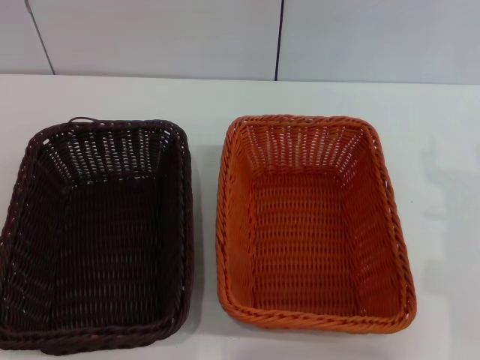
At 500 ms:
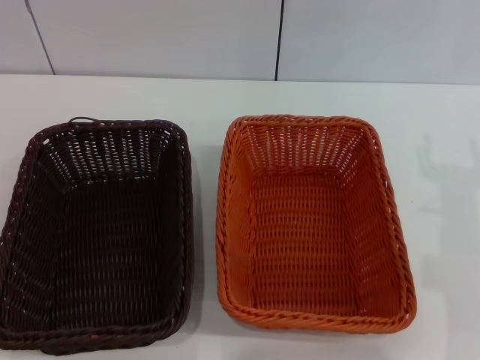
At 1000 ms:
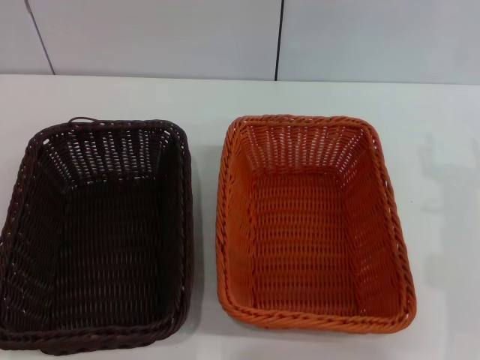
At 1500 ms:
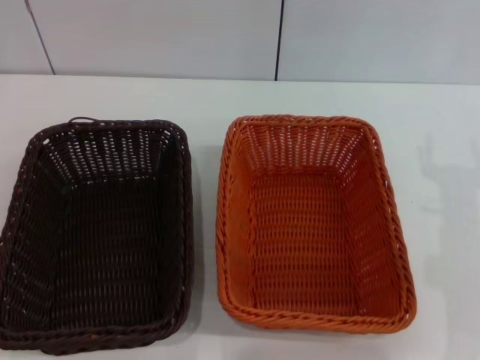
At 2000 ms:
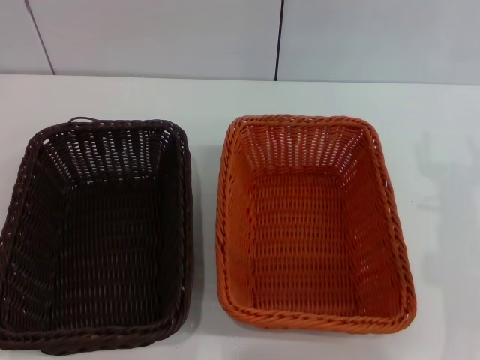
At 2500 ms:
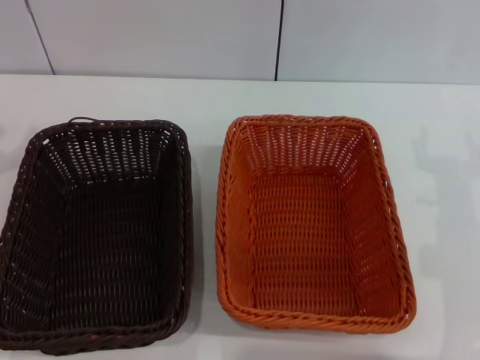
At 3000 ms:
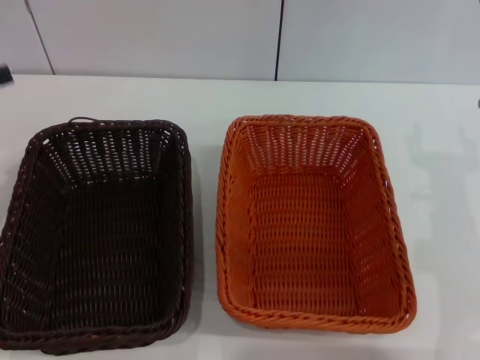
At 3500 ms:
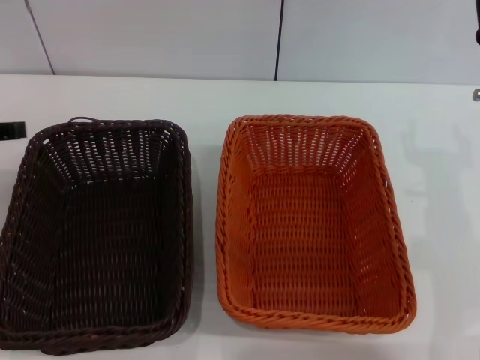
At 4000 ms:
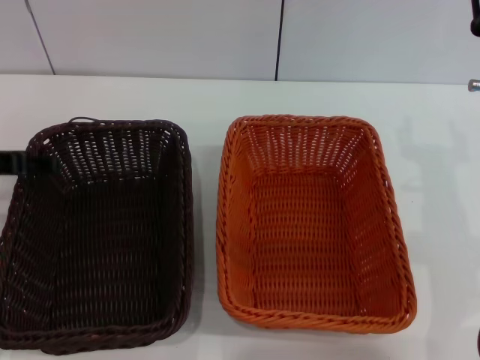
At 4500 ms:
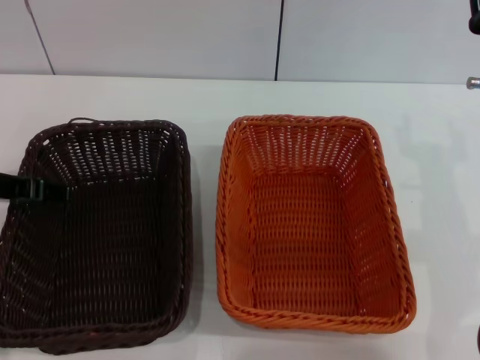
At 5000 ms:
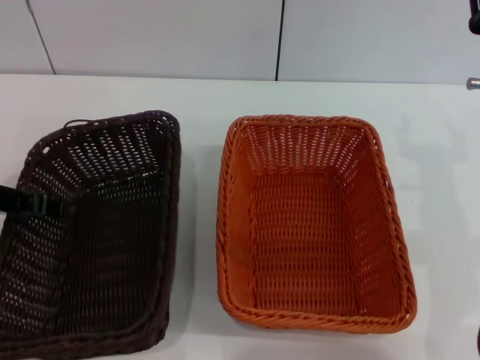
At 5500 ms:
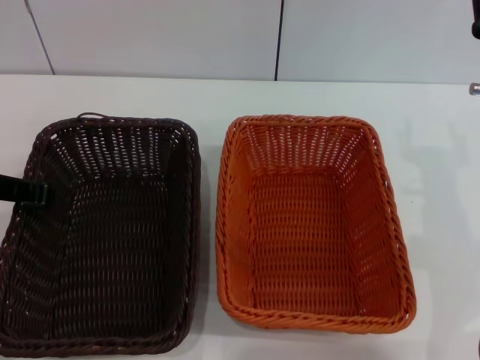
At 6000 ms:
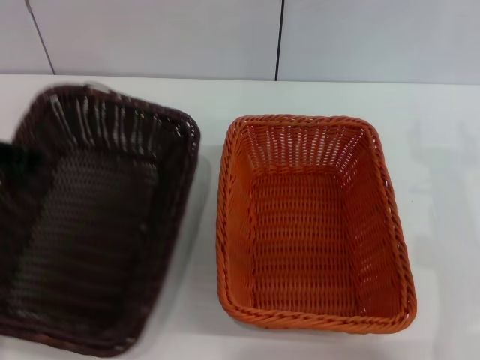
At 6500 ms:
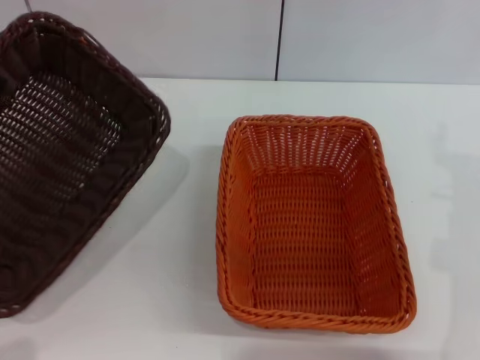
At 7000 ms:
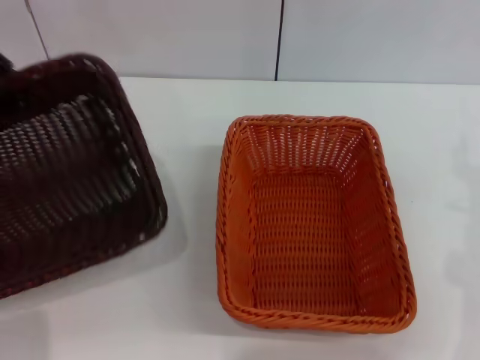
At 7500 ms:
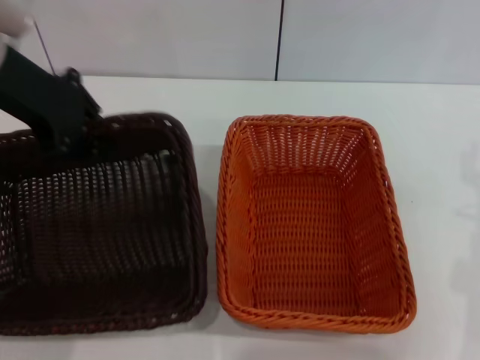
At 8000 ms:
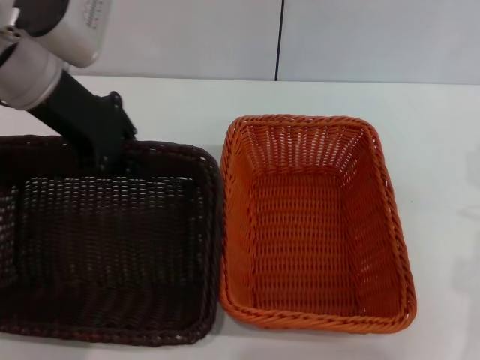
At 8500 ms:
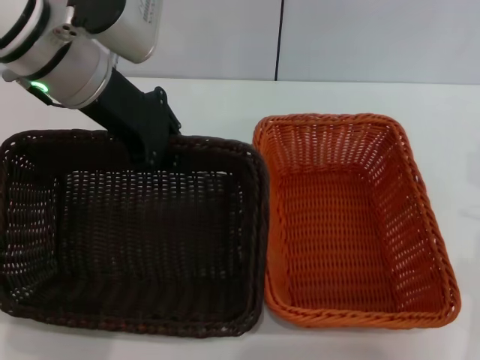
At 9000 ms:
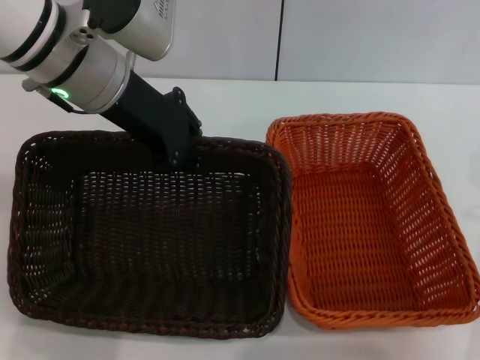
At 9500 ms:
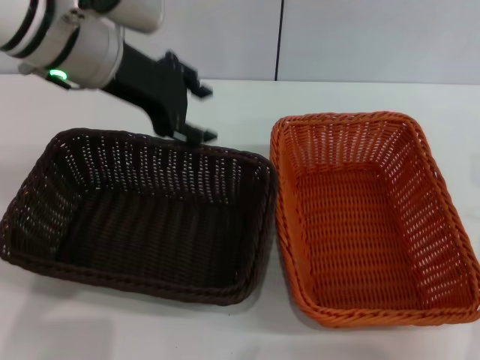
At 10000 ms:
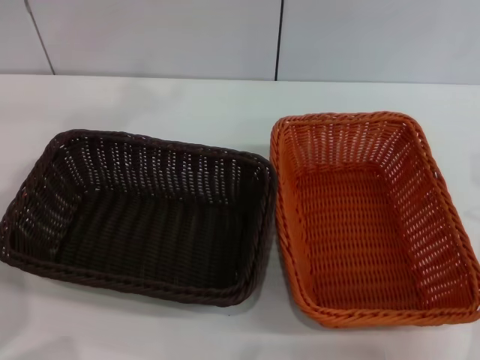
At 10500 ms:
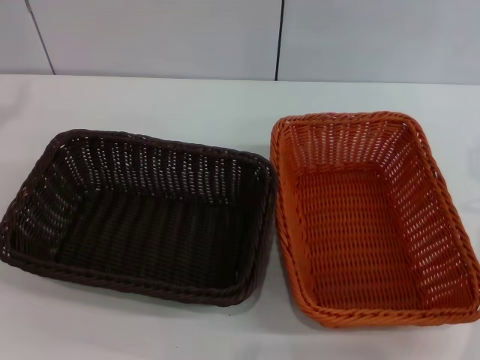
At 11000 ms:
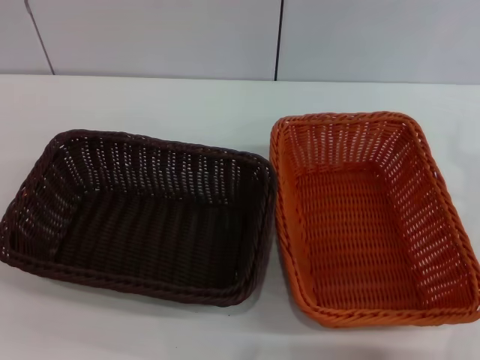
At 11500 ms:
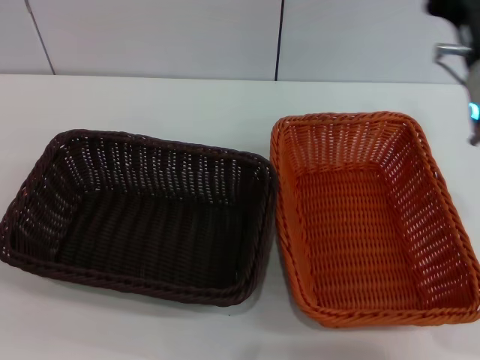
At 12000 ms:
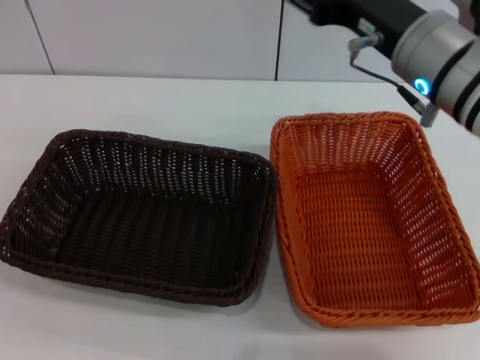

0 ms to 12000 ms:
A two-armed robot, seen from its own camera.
Step, 0 ms to 5500 ms: Pick up the dark basket with the left gripper.
Step, 6000 ms to 9000 ms: Place the dark basket in the center of view with the left gripper.
4000 ms to 6000 ms: The left gripper closes.
6000 ms to 8000 ms: The left gripper travels to the right, forward and upward by approximately 10 cm; the right gripper shifts by approximately 5 cm.
8000 ms to 10000 ms: The left gripper goes about 5 cm to the left, and opens up.
10000 ms to 12000 ms: The right gripper shifts approximately 15 cm to the left, upward and forward.

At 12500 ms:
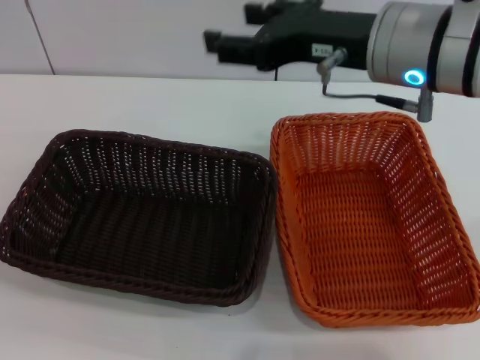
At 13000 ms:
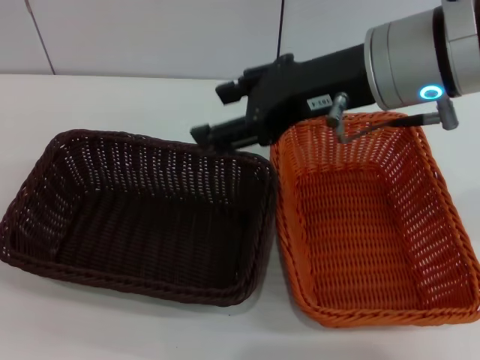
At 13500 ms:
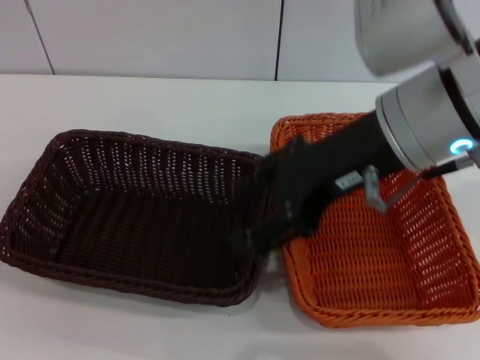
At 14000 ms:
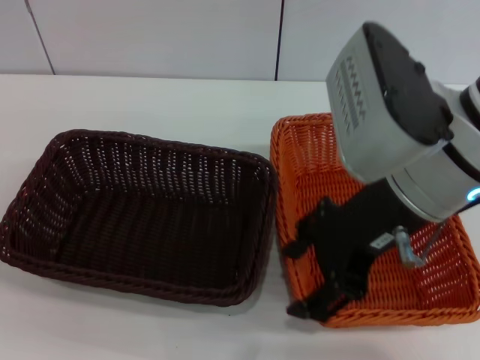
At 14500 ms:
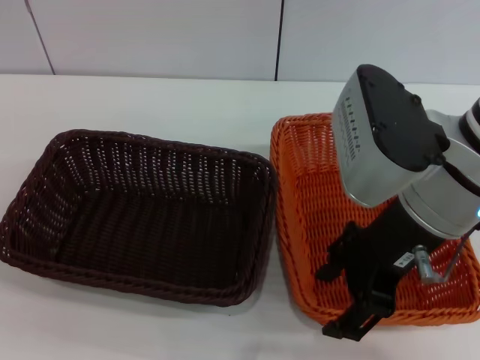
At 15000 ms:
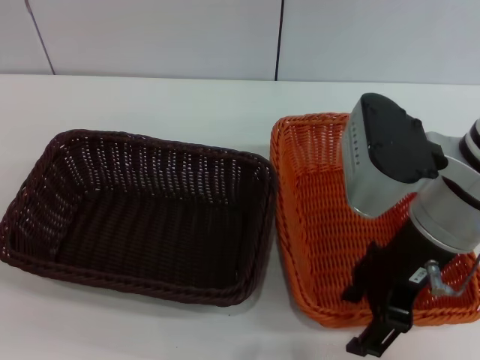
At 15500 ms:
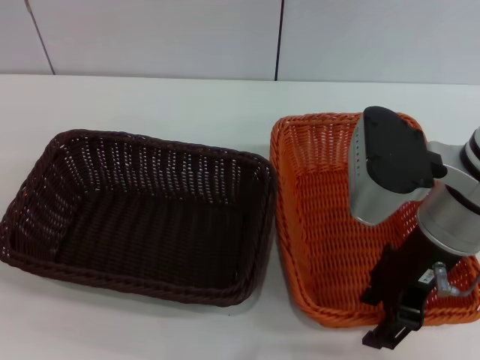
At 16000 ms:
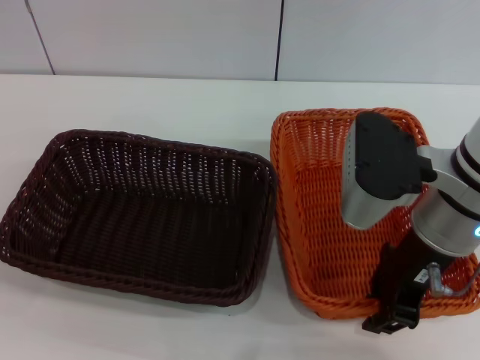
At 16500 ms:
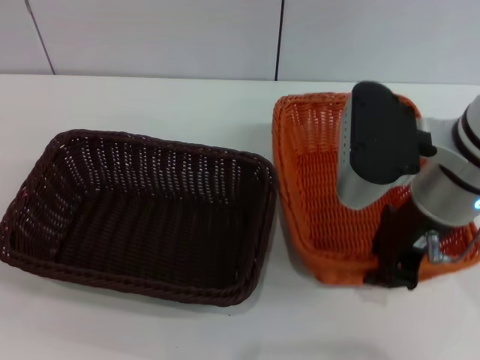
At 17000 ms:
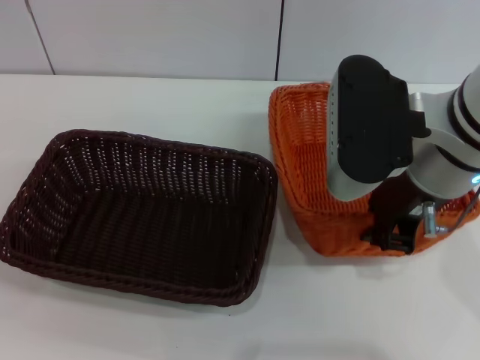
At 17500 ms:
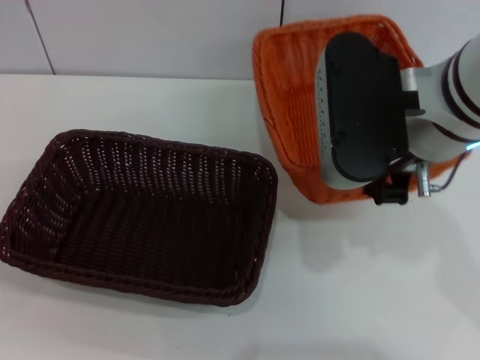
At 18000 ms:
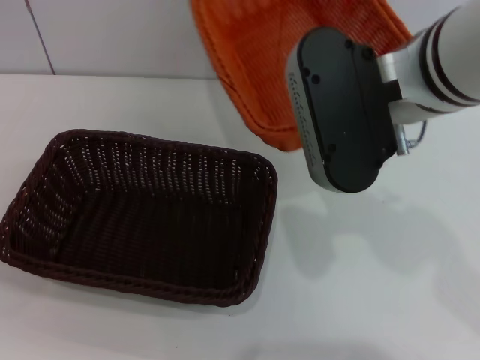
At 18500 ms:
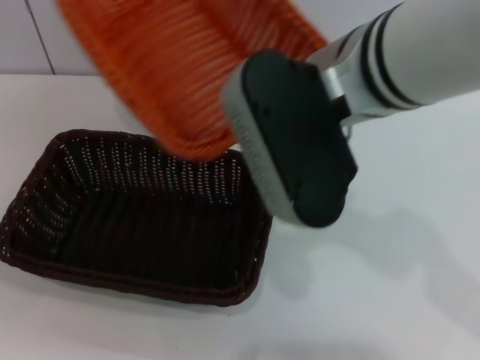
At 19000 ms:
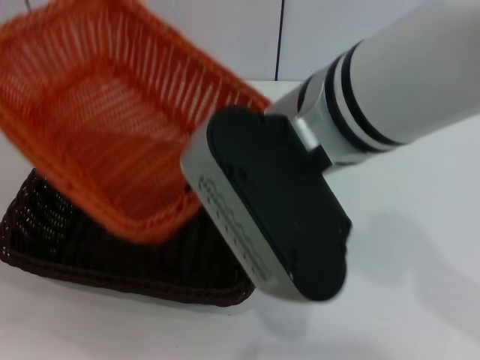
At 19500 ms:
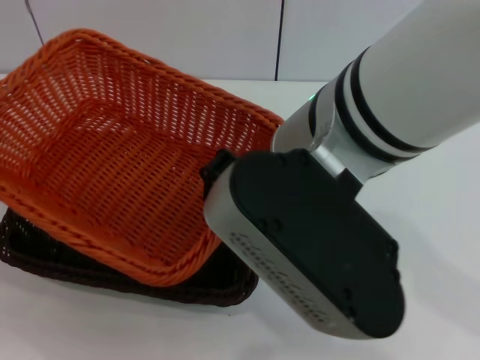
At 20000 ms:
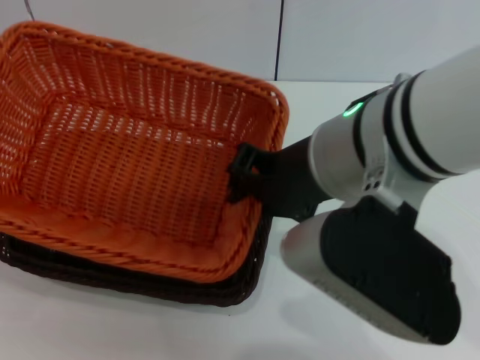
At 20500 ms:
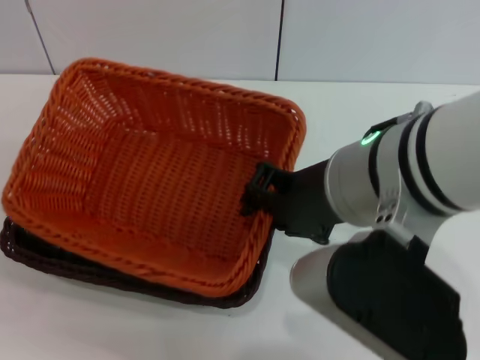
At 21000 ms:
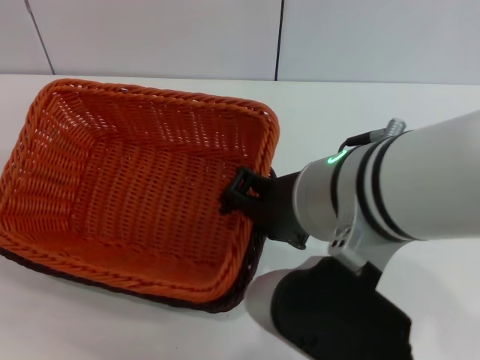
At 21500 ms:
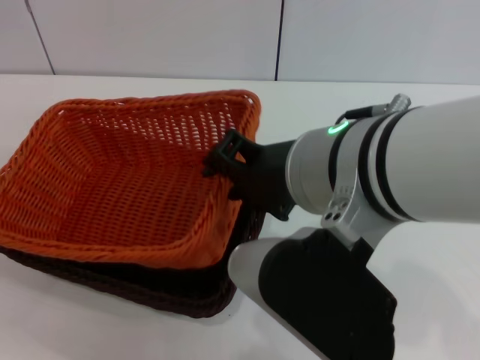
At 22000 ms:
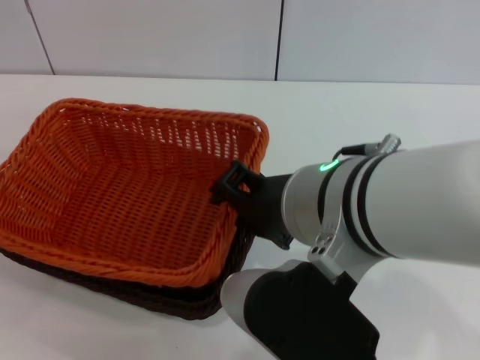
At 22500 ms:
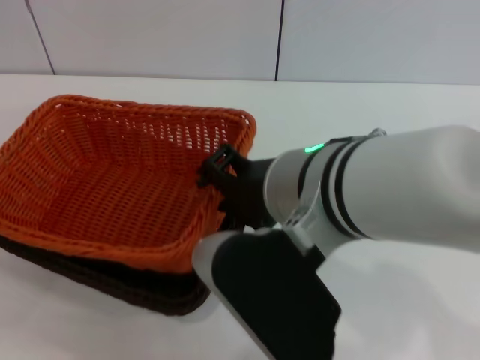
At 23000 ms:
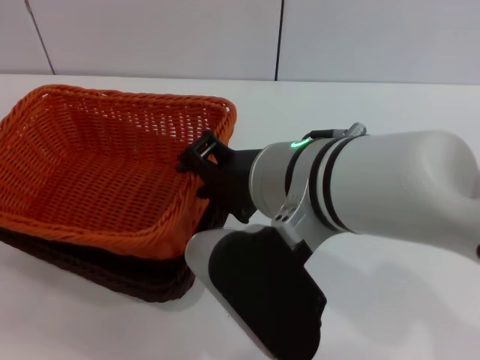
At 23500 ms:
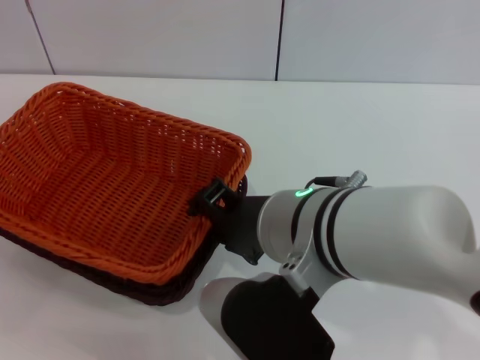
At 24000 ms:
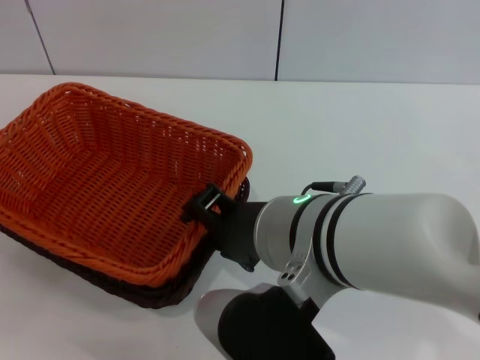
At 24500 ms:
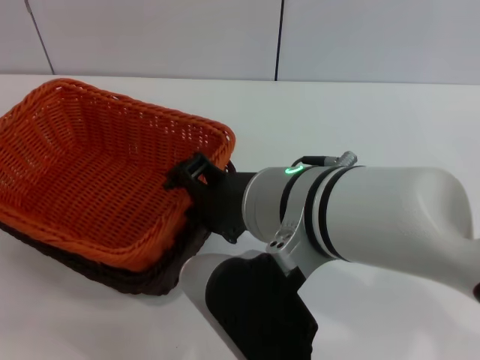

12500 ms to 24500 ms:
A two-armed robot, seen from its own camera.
Step, 12500 ms to 17000 ms: Pick up the light basket with the right gripper.
12500 ms to 14500 ms: The right gripper changes place by about 5 cm.
14500 ms to 16500 ms: The right gripper closes up.
16500 ms to 18500 ms: The right gripper travels to the left and upward by about 10 cm.
18500 ms to 20500 ms: The right gripper moves backward, some 5 cm.

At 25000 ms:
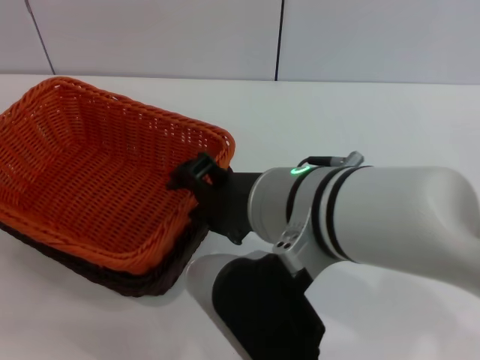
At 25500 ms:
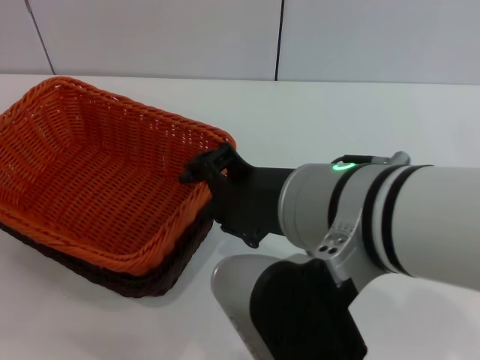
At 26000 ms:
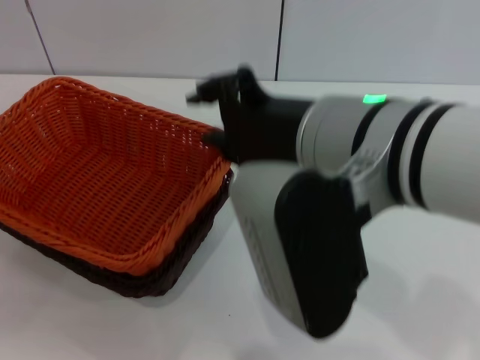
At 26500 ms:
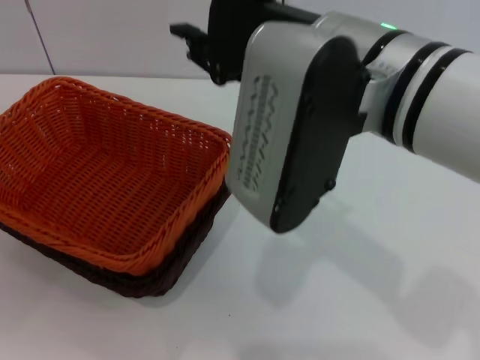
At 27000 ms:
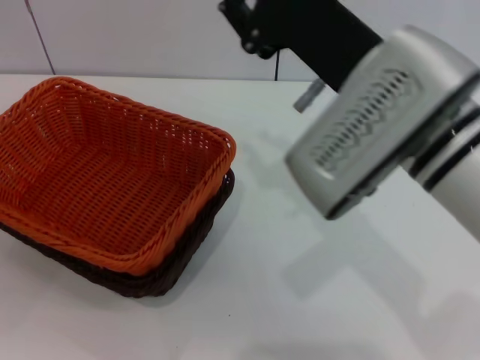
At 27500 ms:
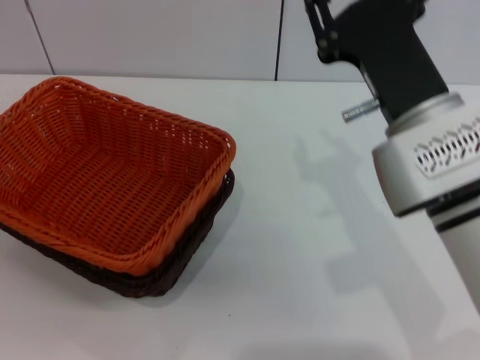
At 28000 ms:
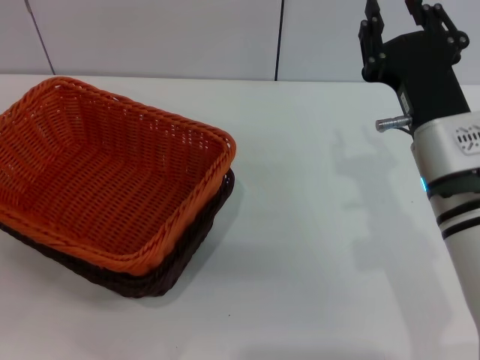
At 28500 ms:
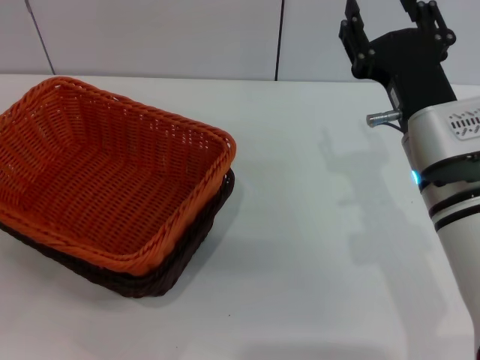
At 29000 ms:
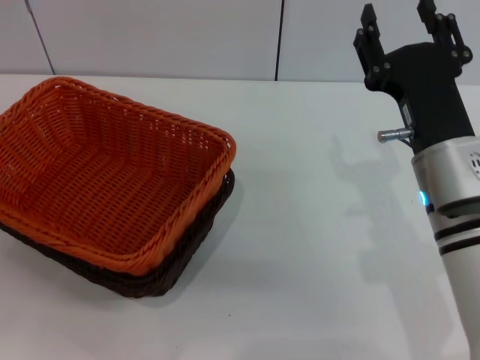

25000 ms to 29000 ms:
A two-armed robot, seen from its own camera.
25000 ms to 27000 ms: The right gripper heads to the right, covering approximately 5 cm.
27000 ms to 29000 ms: The right gripper shifts some 10 cm downward and to the right.
